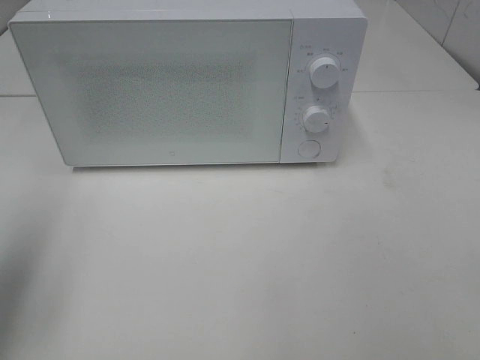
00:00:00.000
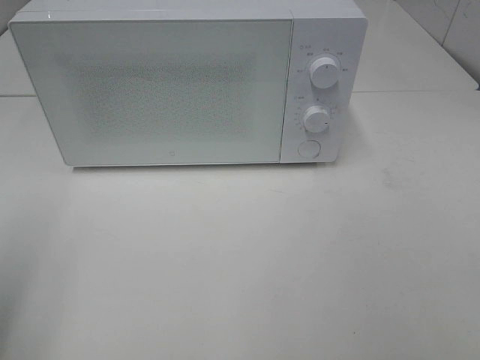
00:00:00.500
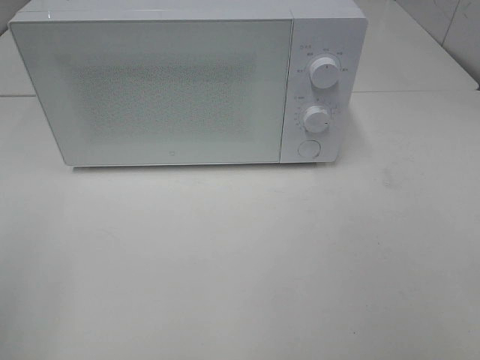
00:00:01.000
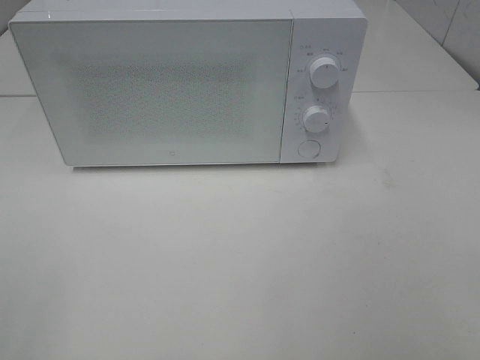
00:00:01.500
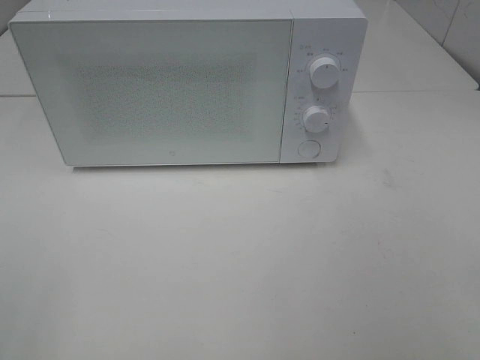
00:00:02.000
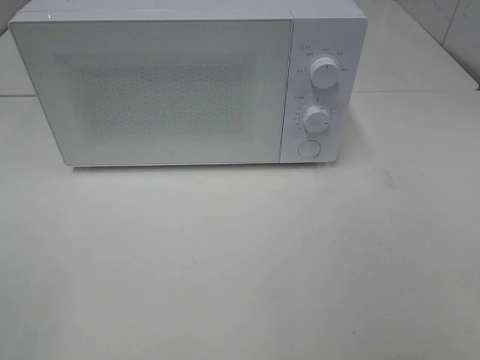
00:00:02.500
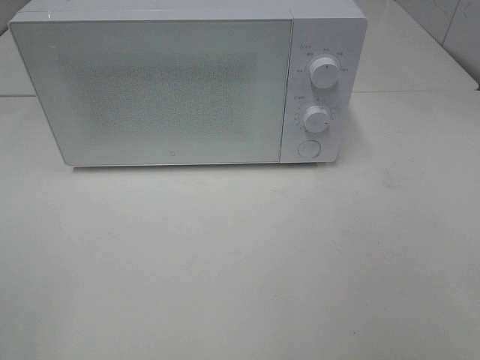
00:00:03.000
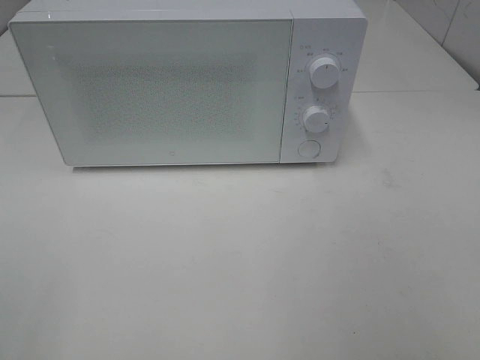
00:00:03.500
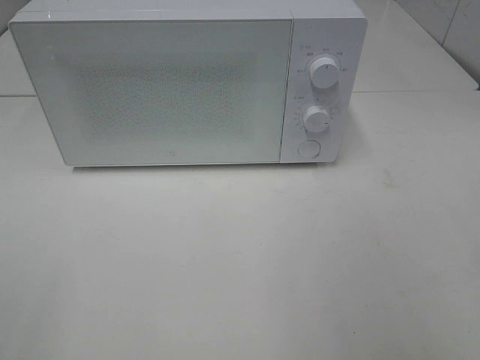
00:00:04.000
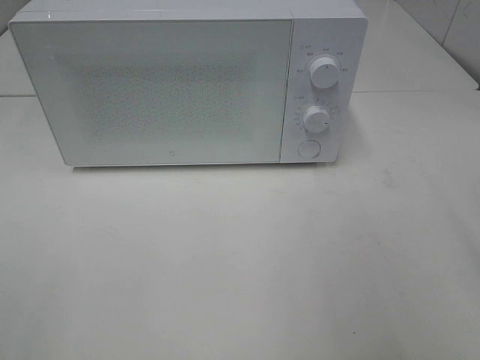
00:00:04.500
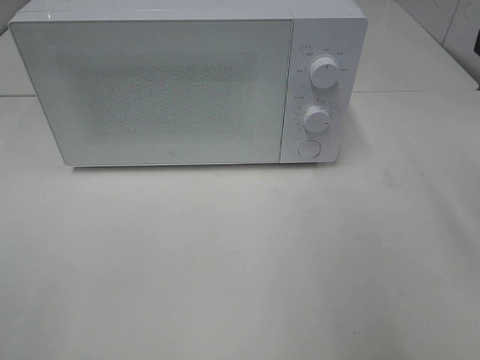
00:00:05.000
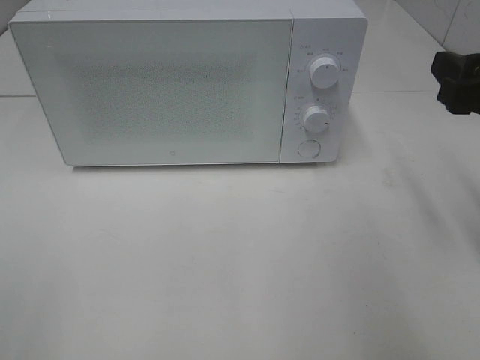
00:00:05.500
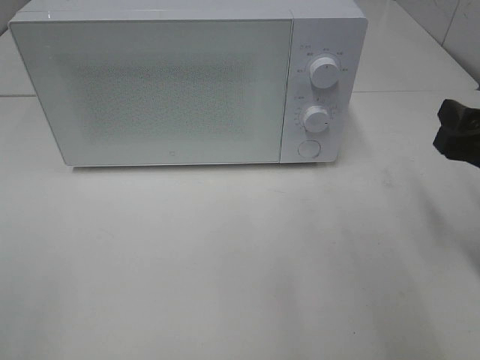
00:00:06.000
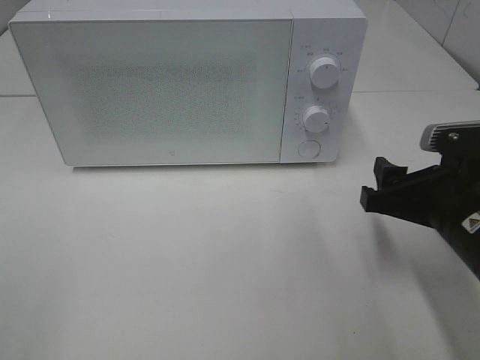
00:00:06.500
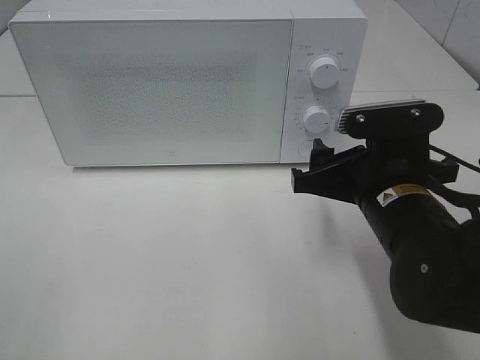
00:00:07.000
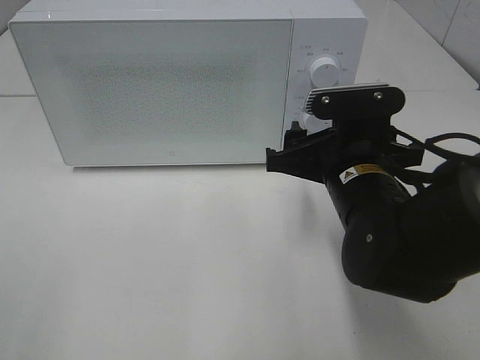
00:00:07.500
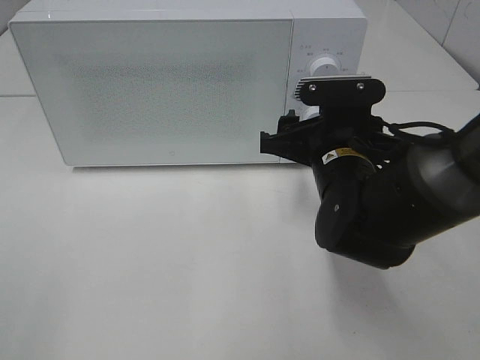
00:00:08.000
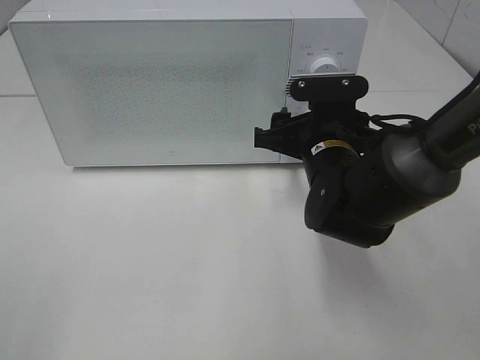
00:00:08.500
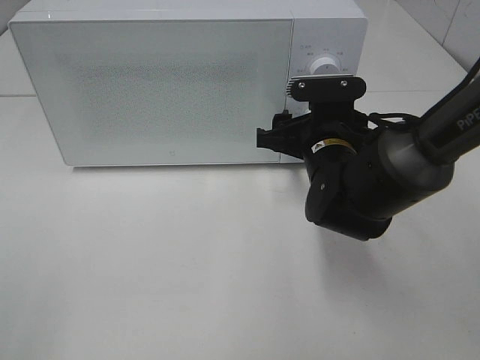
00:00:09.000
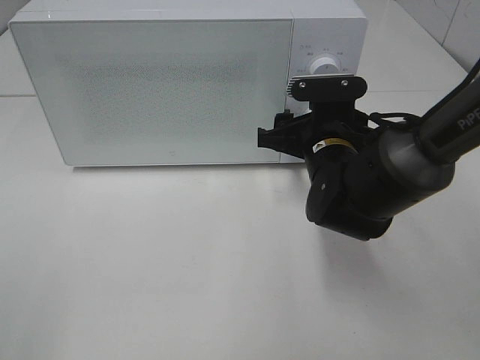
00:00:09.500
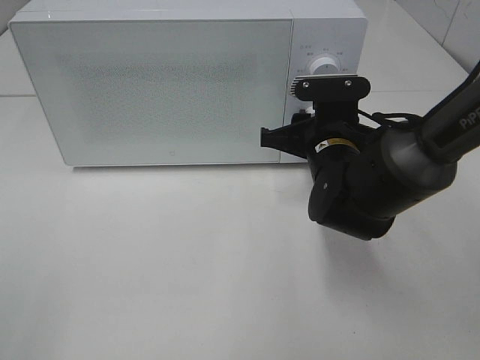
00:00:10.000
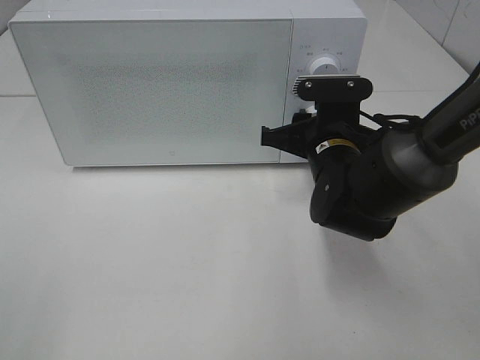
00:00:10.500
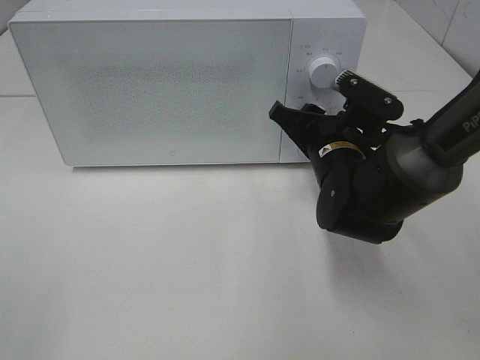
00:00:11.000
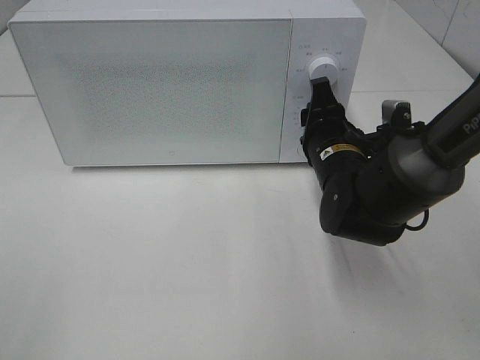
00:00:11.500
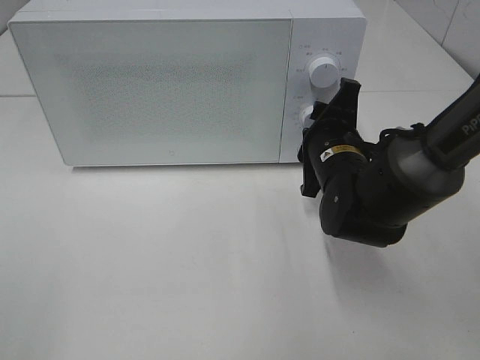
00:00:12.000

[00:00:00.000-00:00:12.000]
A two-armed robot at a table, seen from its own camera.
Task of the whole recording: Heat the burger.
00:00:00.000 to 00:00:02.000: The left gripper heads backward, covering approximately 20 cm.
00:00:04.000 to 00:00:06.000: The right gripper goes approximately 20 cm forward and downward.
00:00:06.000 to 00:00:08.000: The right gripper goes about 20 cm to the left and forward.
00:00:08.000 to 00:00:10.000: The right gripper closes.

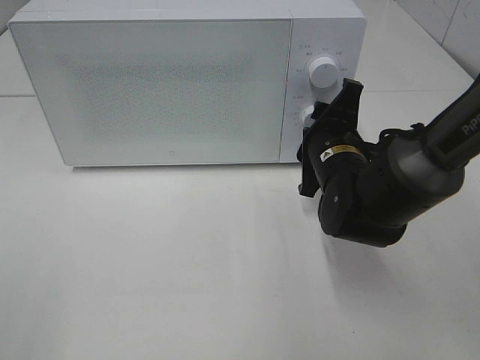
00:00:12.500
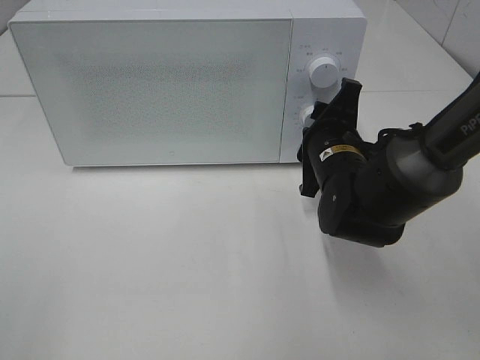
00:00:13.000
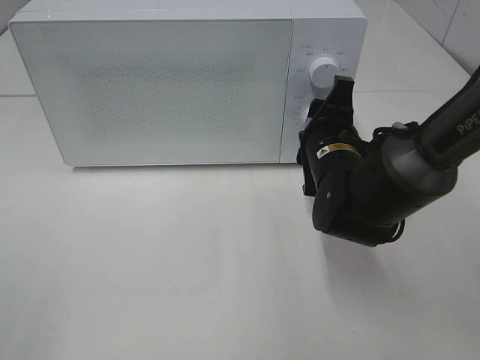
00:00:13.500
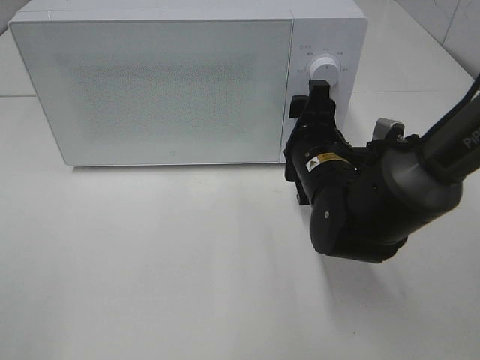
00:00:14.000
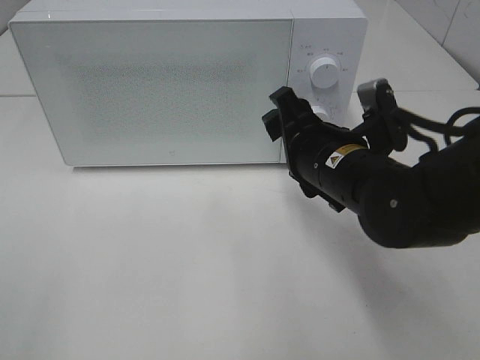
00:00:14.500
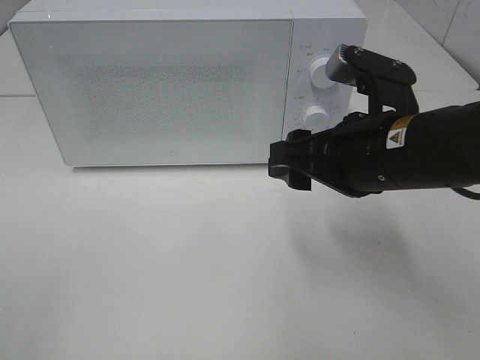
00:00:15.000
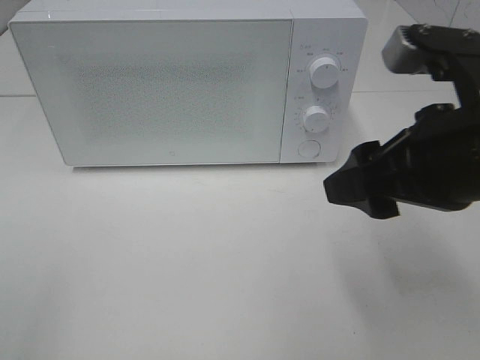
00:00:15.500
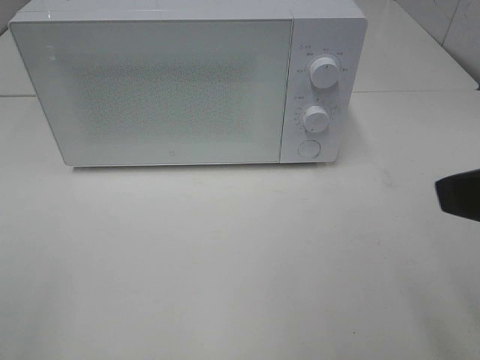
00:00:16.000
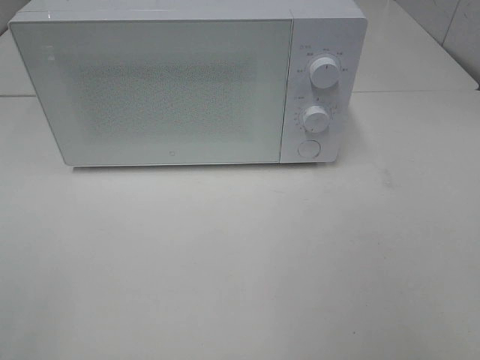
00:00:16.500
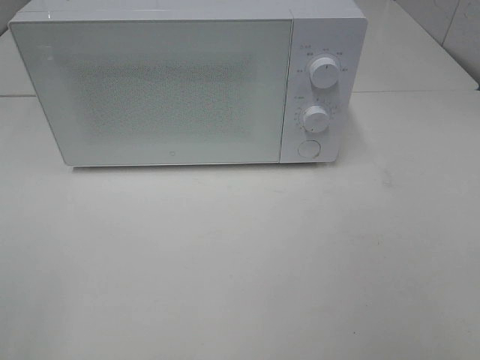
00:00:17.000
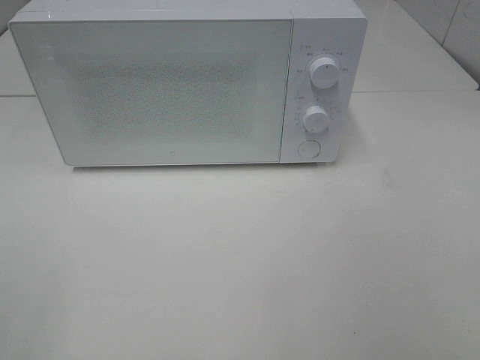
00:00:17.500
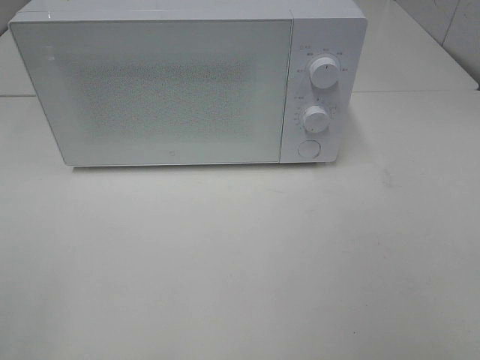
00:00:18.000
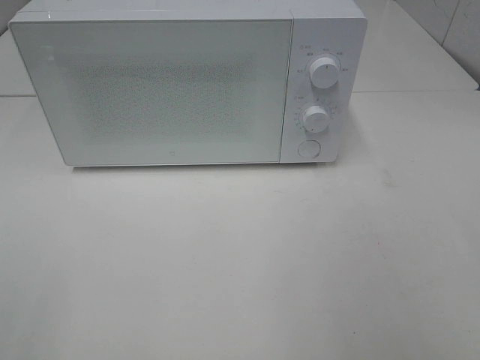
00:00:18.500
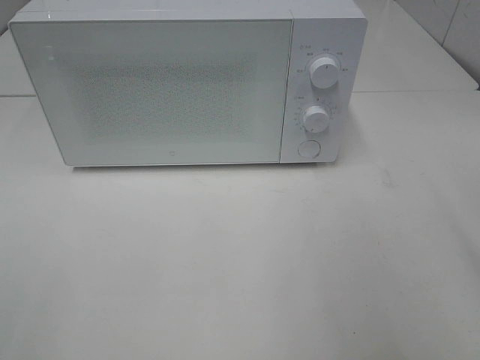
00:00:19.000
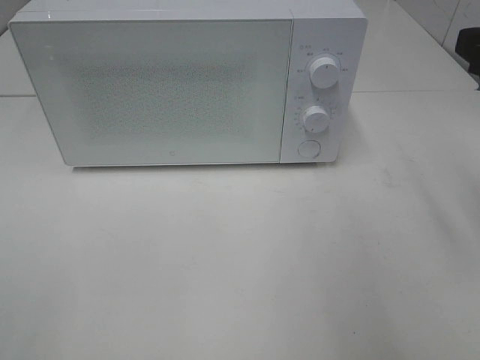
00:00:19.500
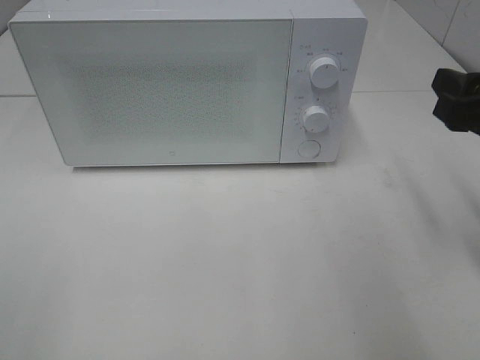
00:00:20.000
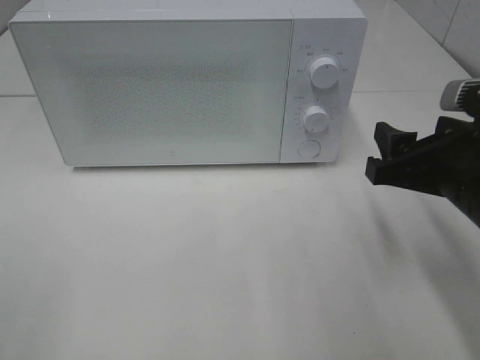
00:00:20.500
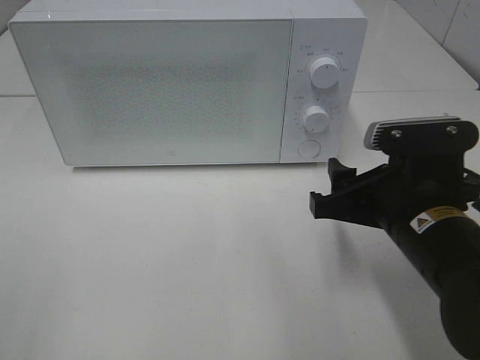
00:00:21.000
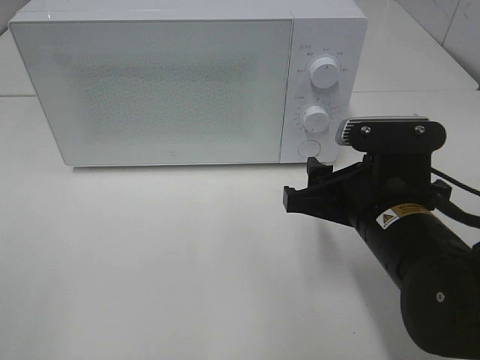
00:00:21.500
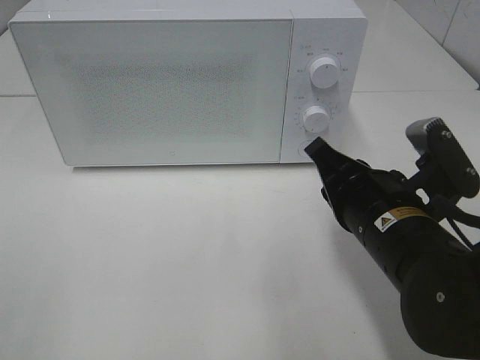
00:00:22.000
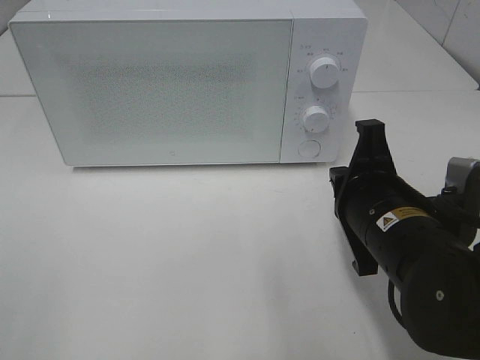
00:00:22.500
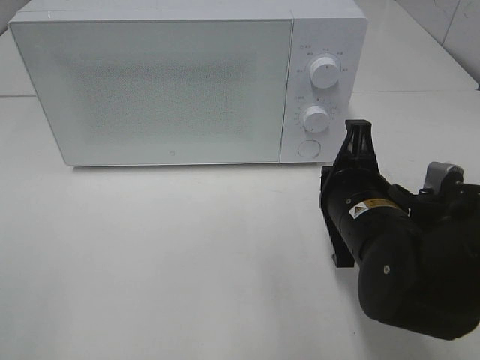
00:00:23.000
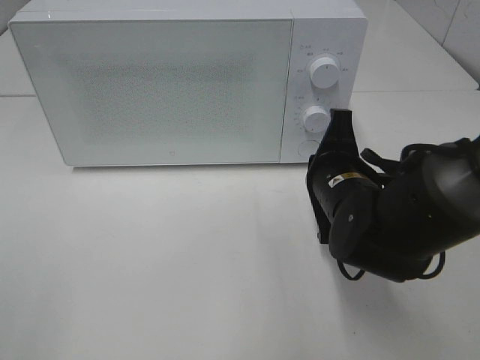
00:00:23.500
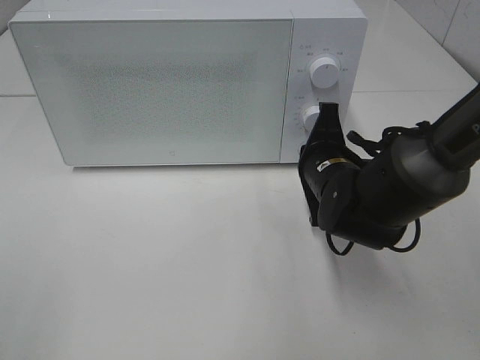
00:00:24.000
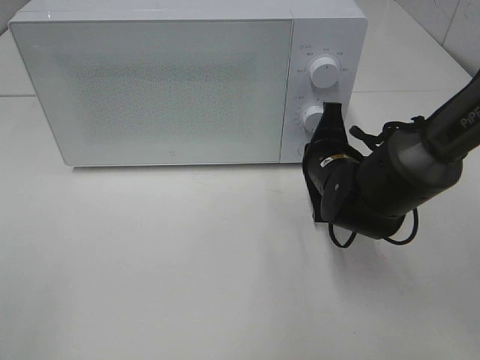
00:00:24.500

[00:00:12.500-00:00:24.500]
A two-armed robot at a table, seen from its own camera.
Task of the whole recording: Heat the burger.
00:00:12.500 to 00:00:14.500: The right gripper heads backward, covering roughly 5 cm.
00:00:14.500 to 00:00:16.500: The right gripper is displaced backward, upward and to the right by approximately 35 cm.
00:00:18.500 to 00:00:20.500: The right gripper moves downward, forward and to the left, roughly 20 cm.
00:00:20.500 to 00:00:22.500: The right gripper moves to the left, approximately 5 cm, and closes.
00:00:22.500 to 00:00:24.500: The right gripper shifts roughly 15 cm forward and downward.

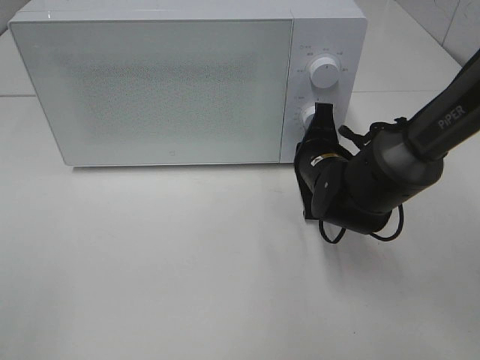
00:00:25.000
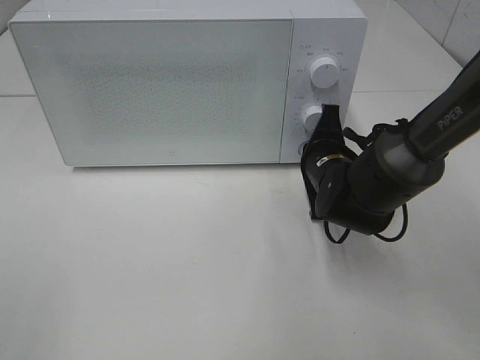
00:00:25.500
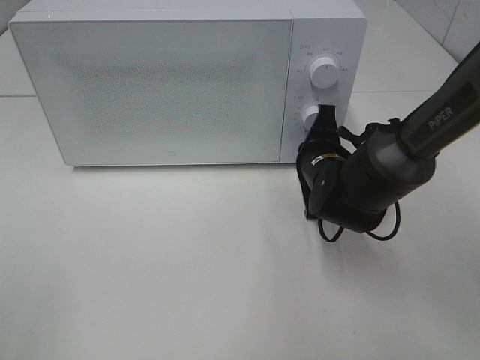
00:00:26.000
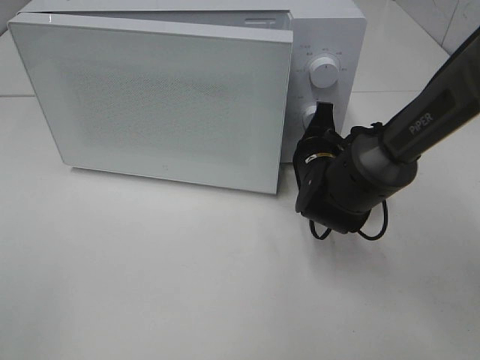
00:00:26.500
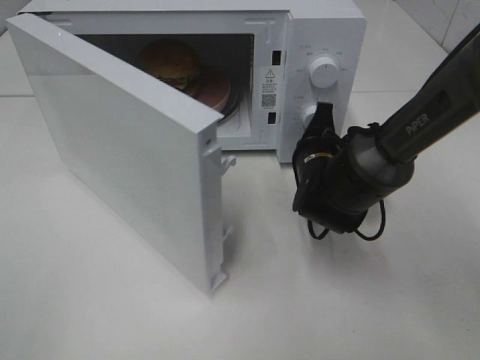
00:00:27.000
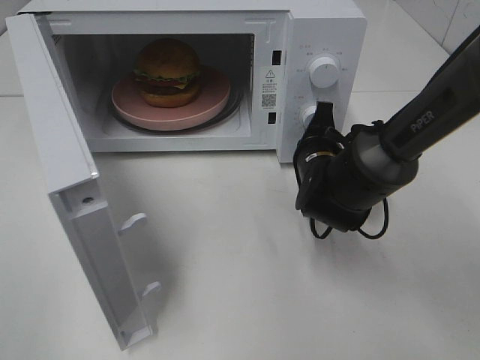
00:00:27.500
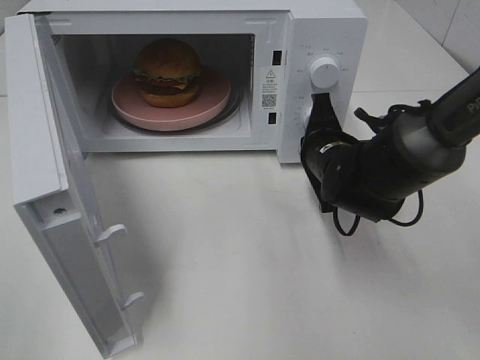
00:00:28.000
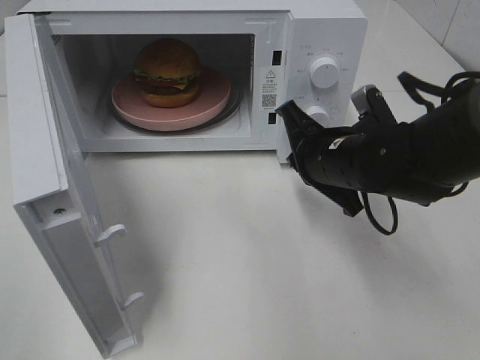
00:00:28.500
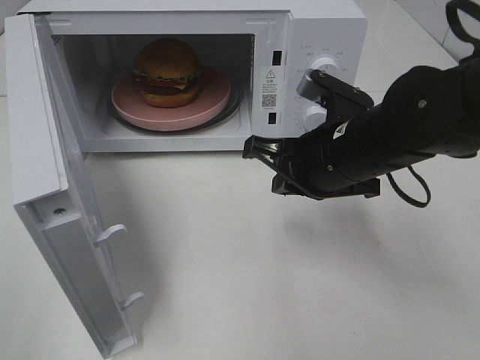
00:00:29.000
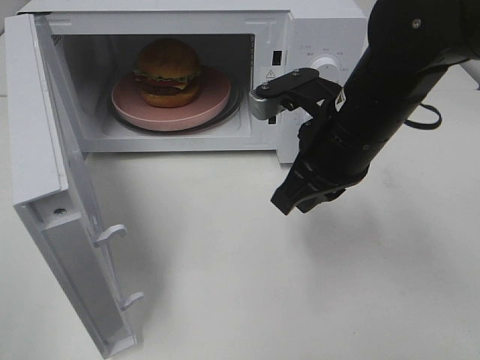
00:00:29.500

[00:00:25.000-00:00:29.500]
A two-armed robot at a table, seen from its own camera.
Task of the whole recording: Heat the burger.
Step, 00:00:25.000 to 00:00:28.000: Right hand: press the switch.
00:00:27.000 to 00:00:29.500: The right gripper heads upward and backward, covering roughly 15 cm.
